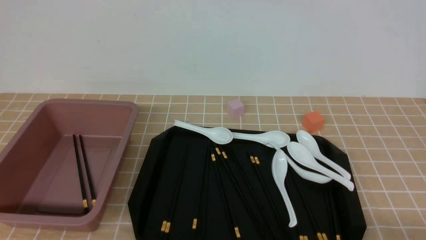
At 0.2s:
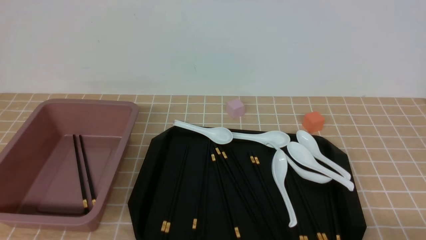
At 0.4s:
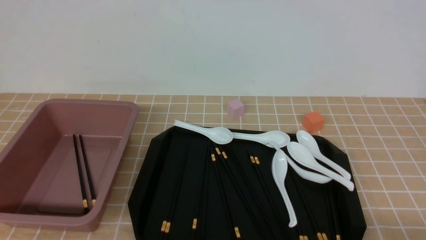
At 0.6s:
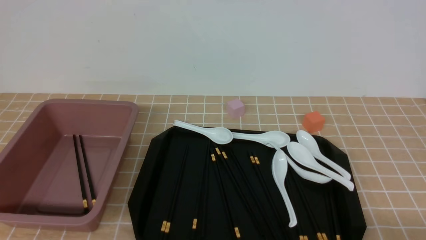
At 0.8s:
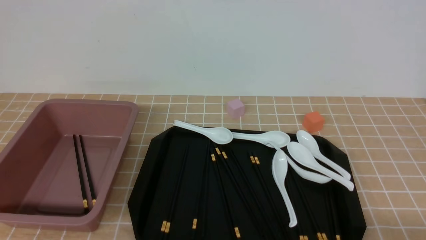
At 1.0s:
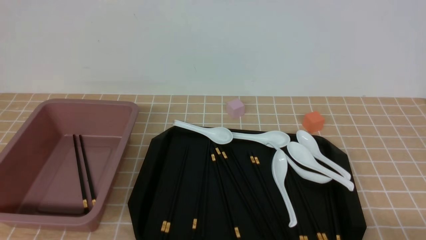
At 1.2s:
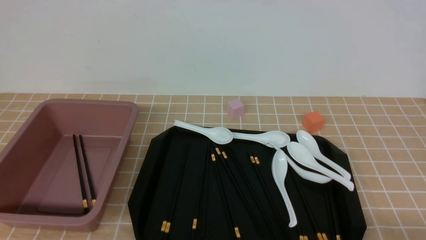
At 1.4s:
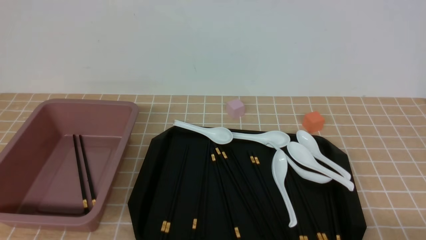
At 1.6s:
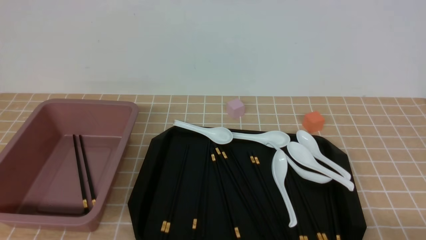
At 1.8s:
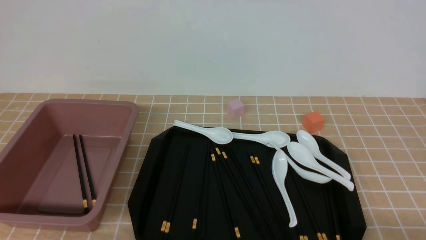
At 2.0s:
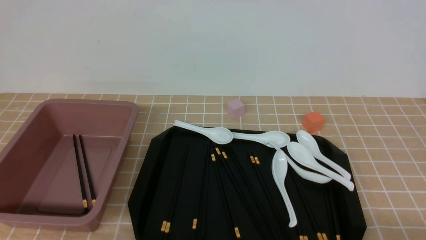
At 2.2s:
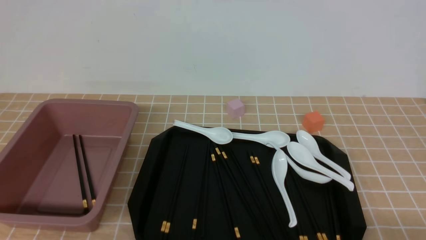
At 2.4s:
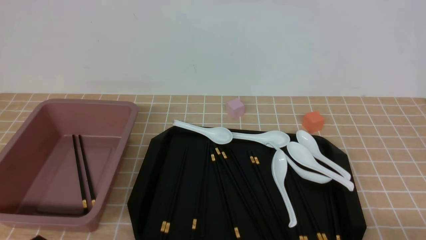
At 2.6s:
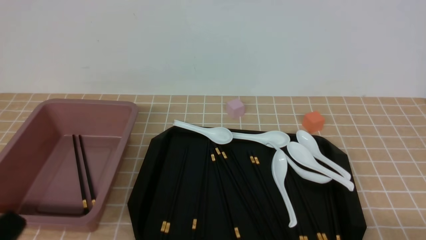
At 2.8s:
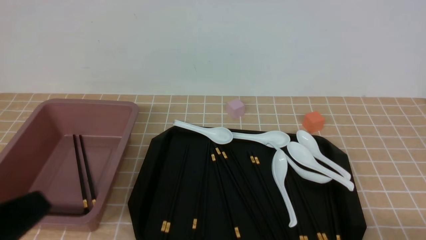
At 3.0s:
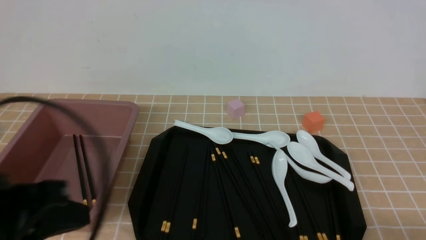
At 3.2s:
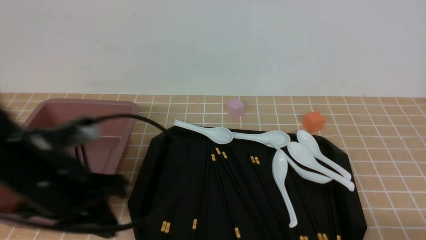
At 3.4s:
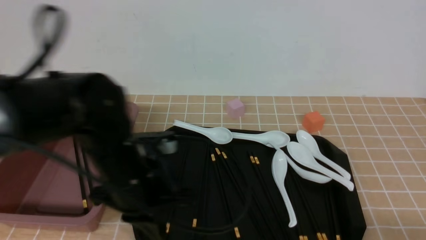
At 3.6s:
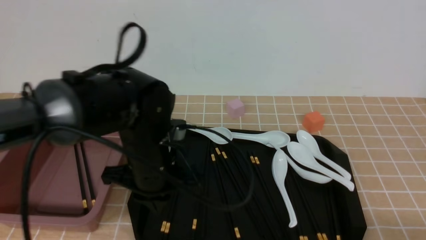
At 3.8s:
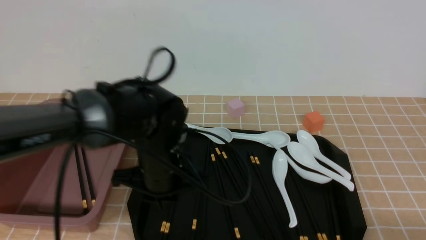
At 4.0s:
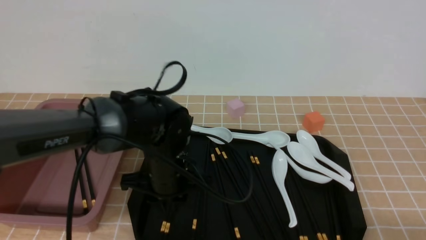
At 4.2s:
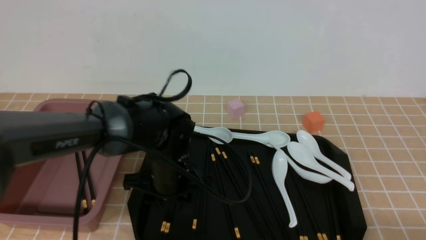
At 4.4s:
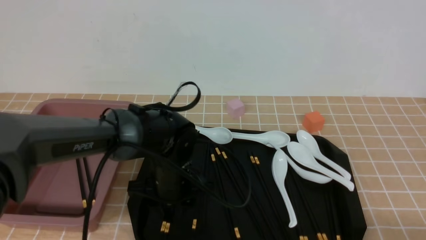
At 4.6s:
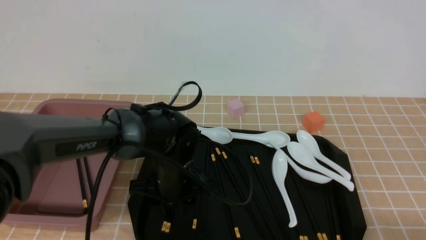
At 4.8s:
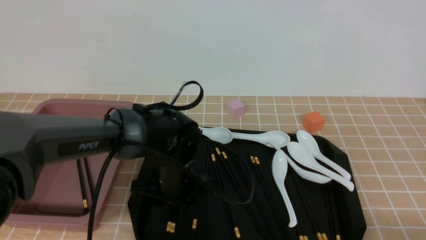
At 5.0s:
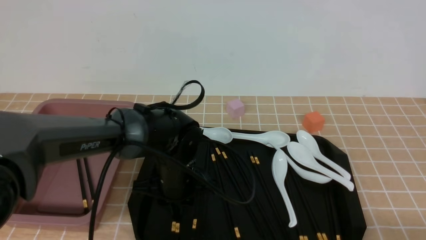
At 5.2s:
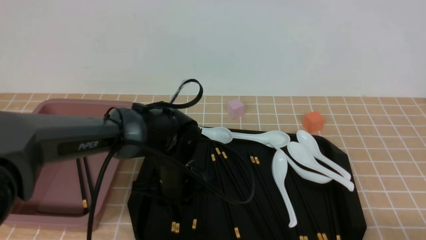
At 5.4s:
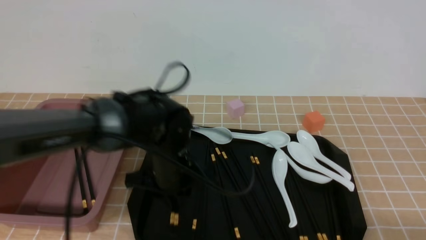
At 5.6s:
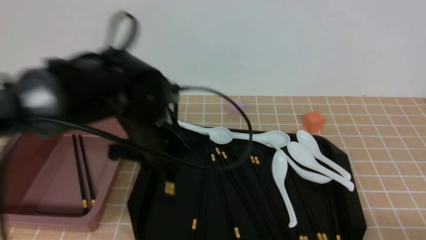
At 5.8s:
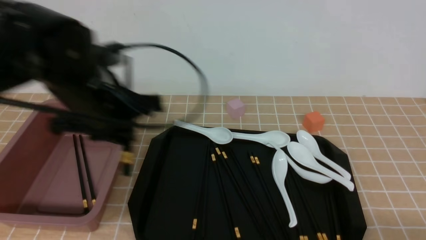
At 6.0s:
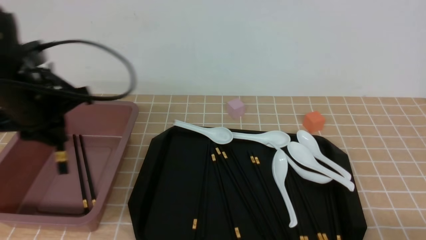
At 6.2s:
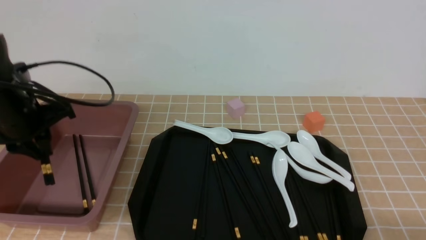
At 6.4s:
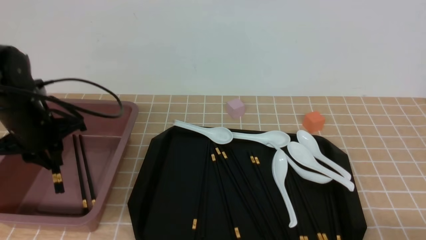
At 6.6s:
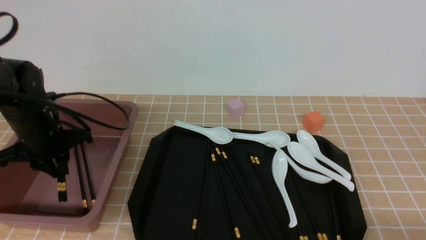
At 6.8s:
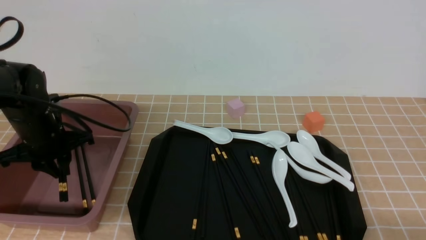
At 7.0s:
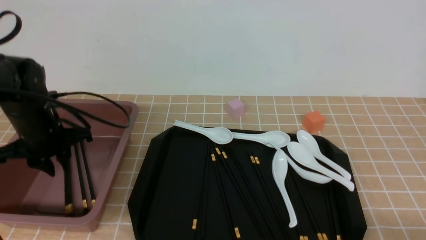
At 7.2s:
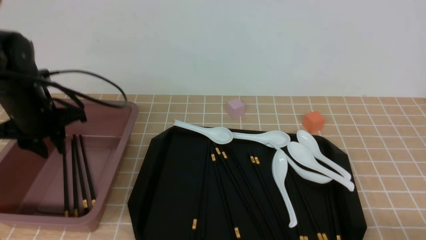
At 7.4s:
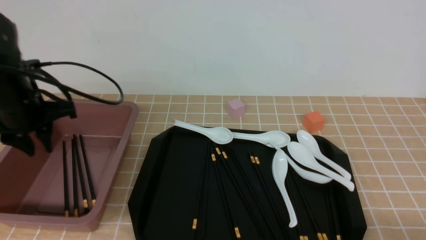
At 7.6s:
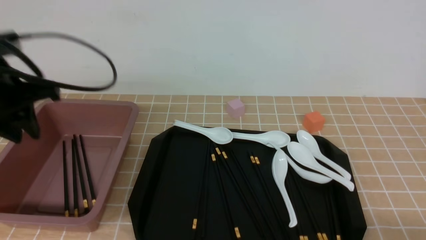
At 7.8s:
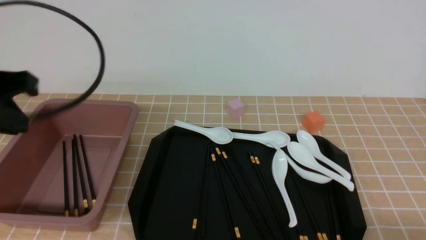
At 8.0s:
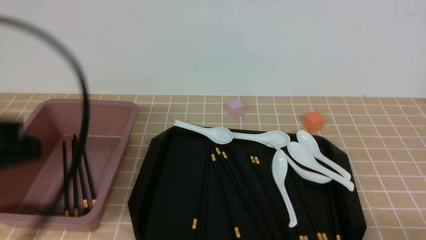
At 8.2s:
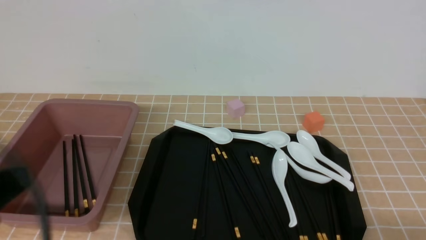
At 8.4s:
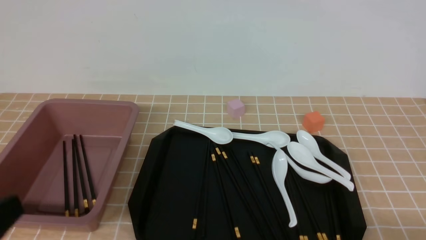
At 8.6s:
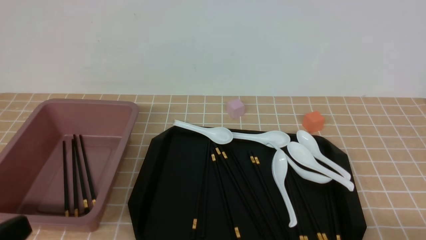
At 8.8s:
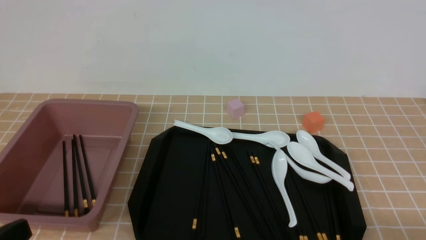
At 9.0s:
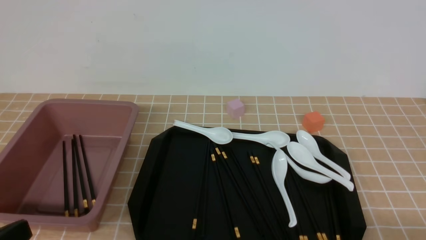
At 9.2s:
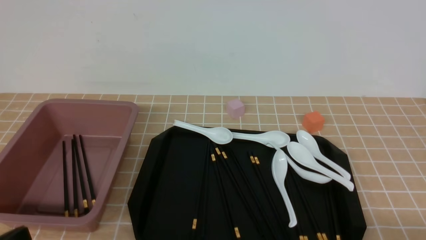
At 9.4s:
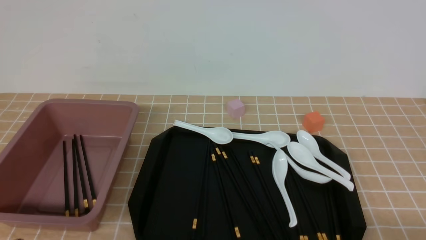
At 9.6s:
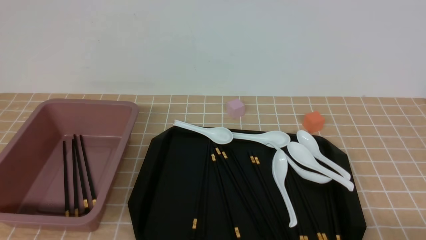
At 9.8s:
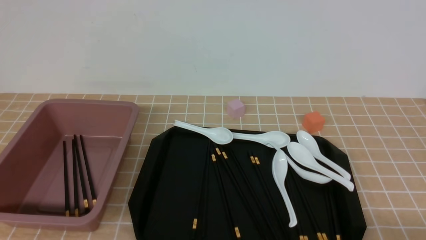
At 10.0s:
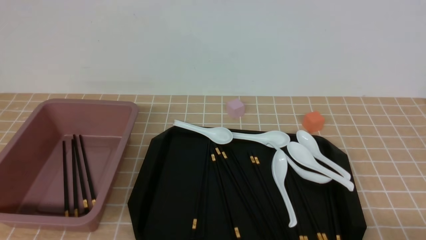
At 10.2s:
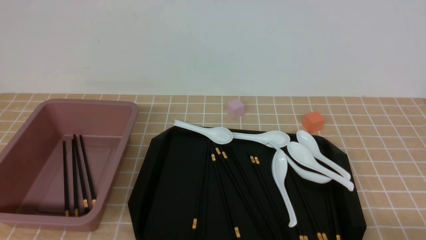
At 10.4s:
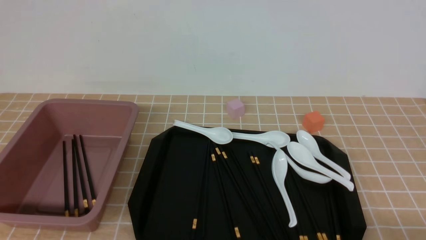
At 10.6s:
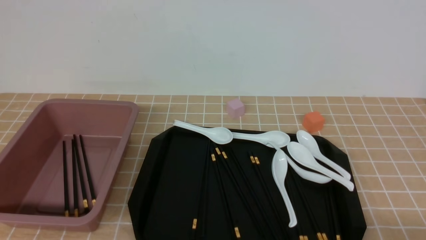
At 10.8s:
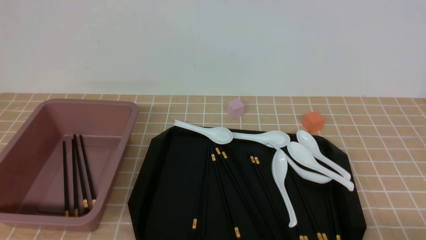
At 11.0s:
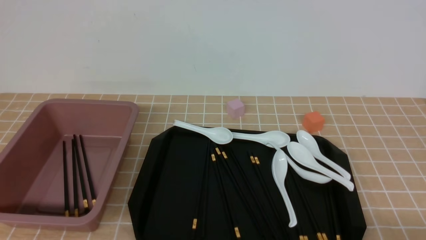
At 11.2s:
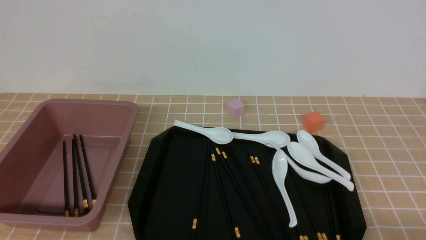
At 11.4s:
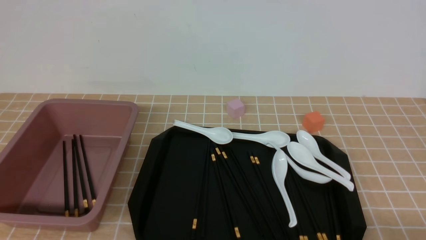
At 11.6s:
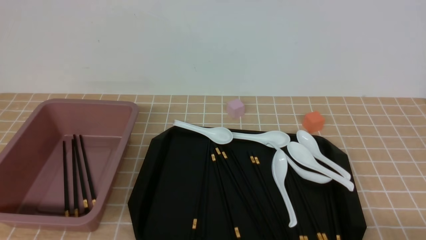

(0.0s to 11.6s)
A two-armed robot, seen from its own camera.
Step, 0.0s - 5.4s: use the left arm to grab a pair of chopsticks.
Step, 5.8s - 7.2s: use the left arm to put the chopsticks into the lunch box.
0.0s - 1.4s: Neither gripper changes place.
1.4s - 2.8s: The left gripper is displaced upward by about 10 cm, and closes.
2.8s - 4.4s: The left gripper heads forward, to the right and downward, covering about 35 cm, and opens.
4.4s - 5.8s: The left gripper shifts approximately 20 cm upward and to the left, and closes up.
5.8s - 7.2s: The left gripper moves to the left and forward, about 10 cm.
7.2s - 8.8s: The left gripper moves backward, roughly 30 cm, and closes up.
10.2s - 11.6s: Neither gripper changes place.

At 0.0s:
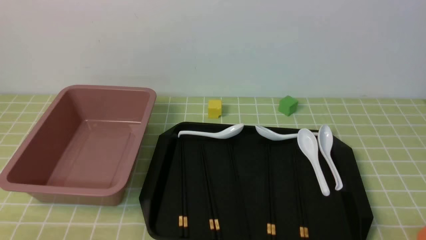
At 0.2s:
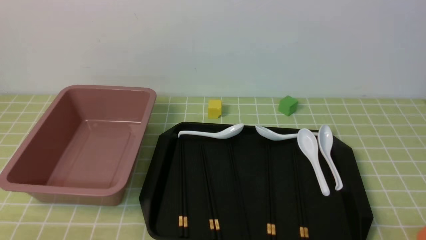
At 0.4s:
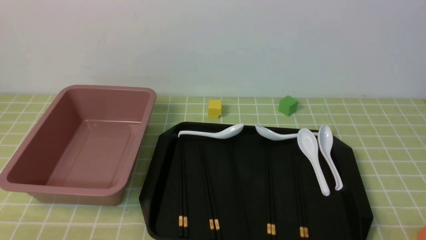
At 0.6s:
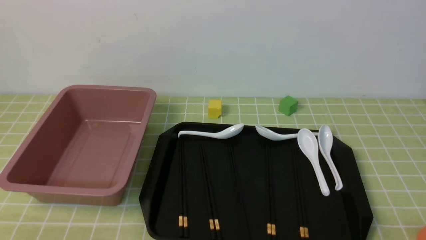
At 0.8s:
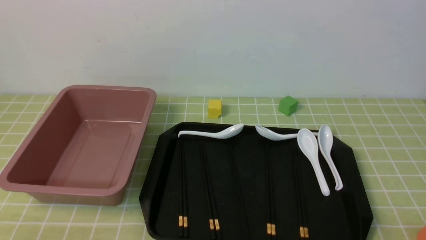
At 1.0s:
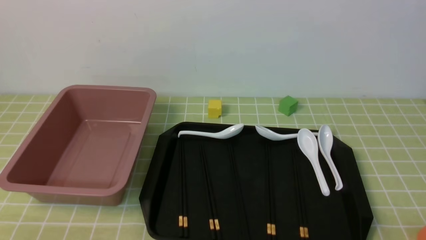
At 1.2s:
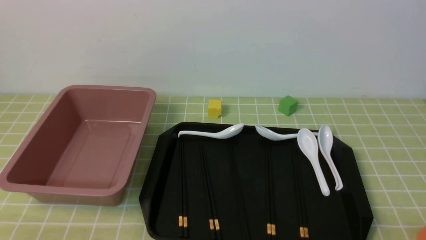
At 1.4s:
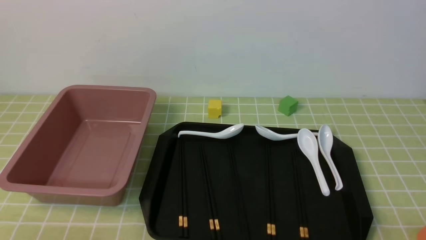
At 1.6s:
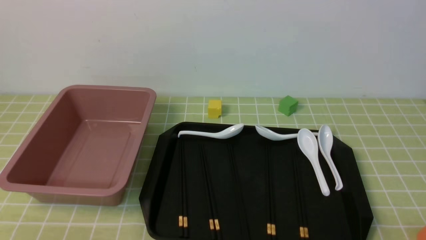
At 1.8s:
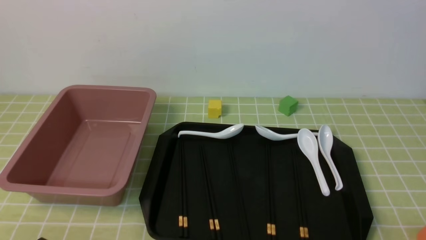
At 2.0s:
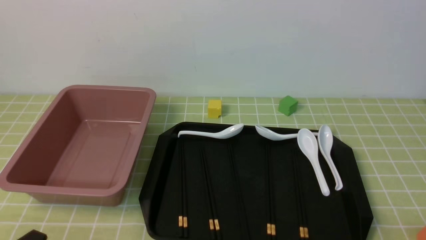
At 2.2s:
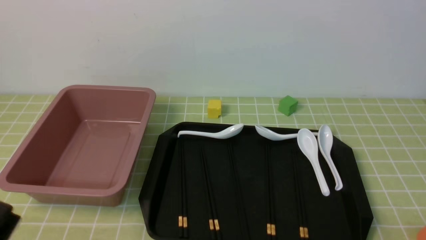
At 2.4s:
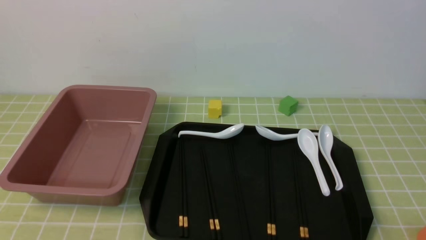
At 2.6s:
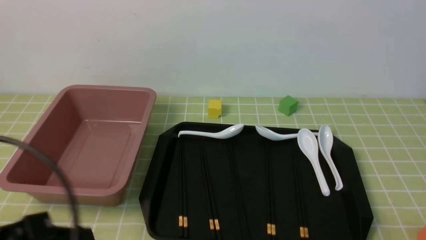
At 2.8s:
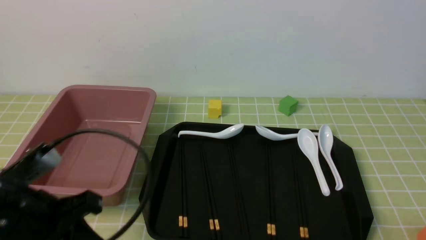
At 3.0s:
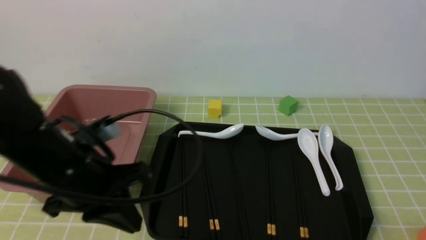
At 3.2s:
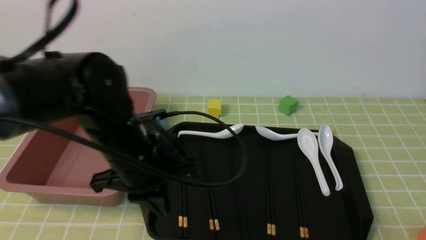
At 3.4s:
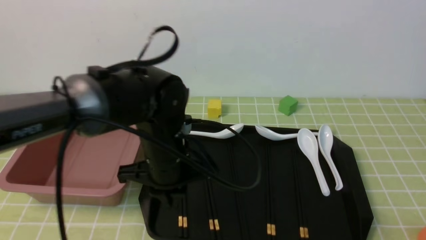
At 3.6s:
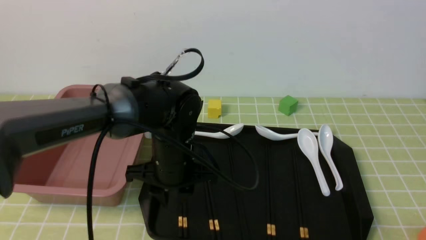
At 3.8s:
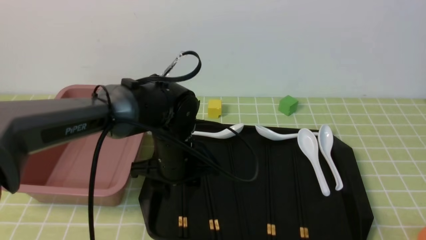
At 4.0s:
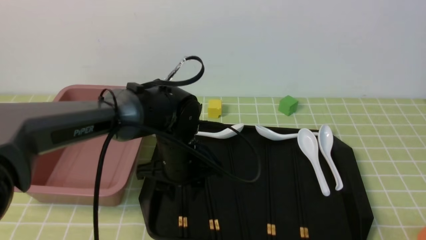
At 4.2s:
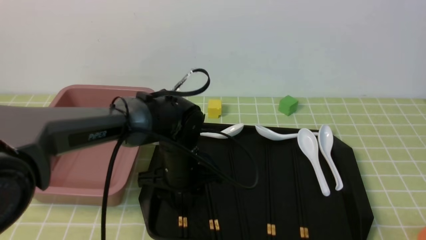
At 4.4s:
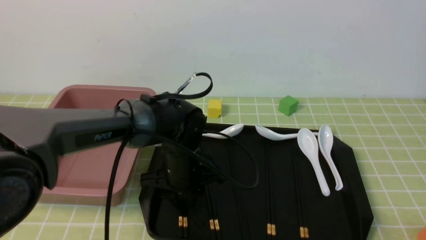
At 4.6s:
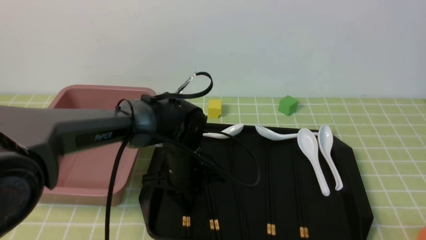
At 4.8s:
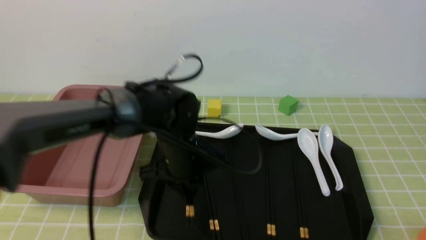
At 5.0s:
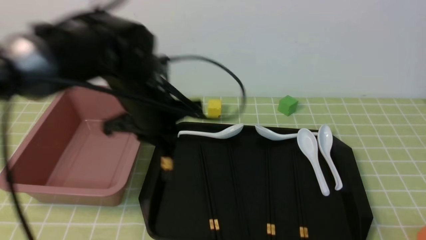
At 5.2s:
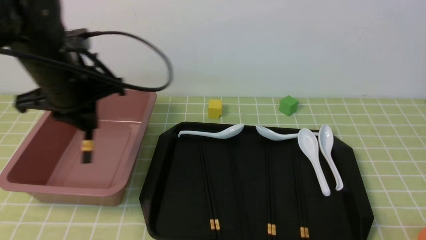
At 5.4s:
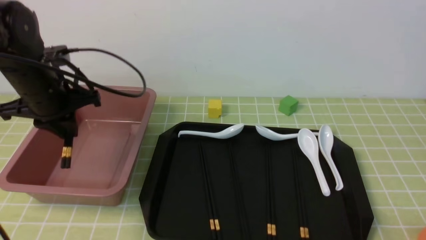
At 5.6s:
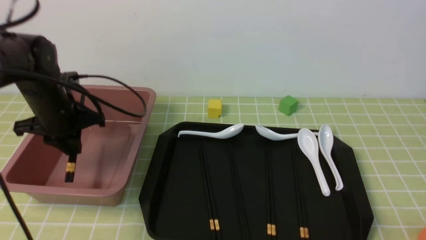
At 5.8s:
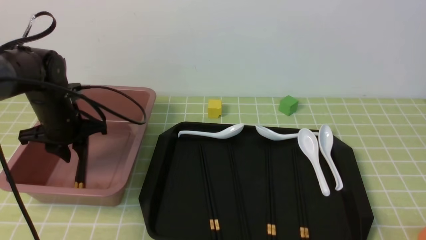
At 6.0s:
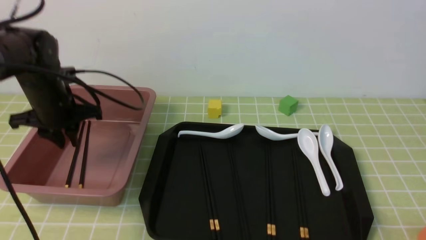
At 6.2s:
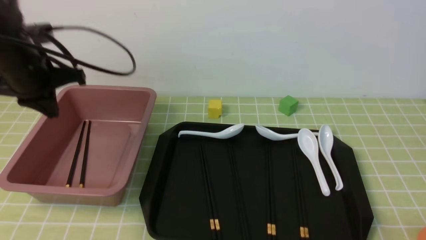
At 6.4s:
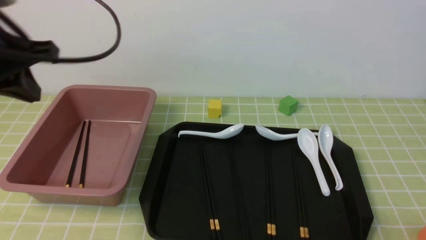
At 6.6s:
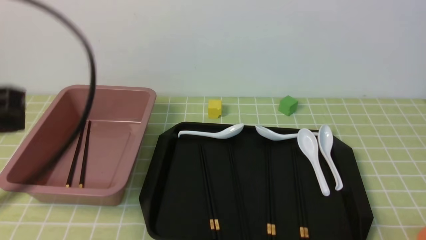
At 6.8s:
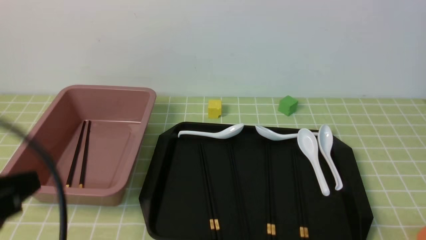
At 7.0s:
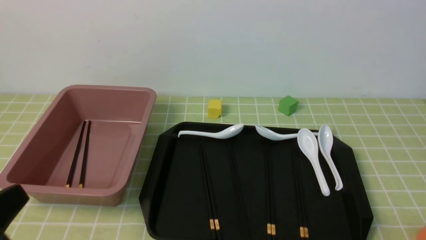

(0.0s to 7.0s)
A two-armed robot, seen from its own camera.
Step, 0.0s - 4.8s: use the left arm to grab a pair of chopsticks.
Step, 5.0s - 6.0s: use the left arm to put the chopsticks into the lunch box.
1.4s - 2.8s: The left gripper goes roughly 15 cm forward, upward and to the right, and closes.
2.8s - 4.2s: The left gripper goes approximately 25 cm forward, to the right and downward, and opens up.
4.2s - 5.6s: The left gripper heads to the left, covering approximately 20 cm, and closes.
5.6s - 7.0s: The left gripper goes approximately 30 cm backward, and closes.
